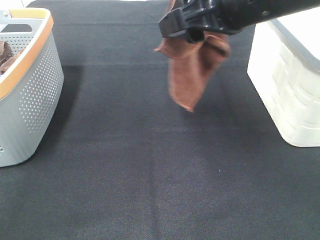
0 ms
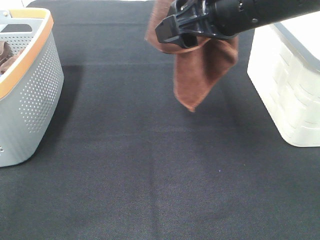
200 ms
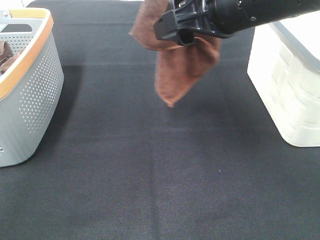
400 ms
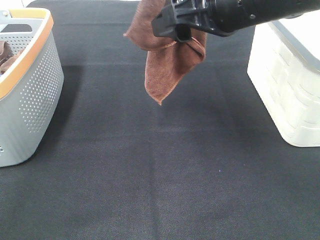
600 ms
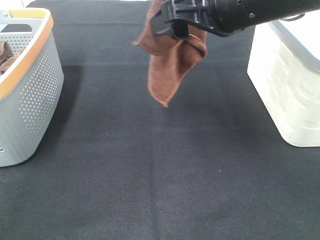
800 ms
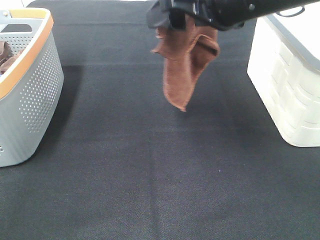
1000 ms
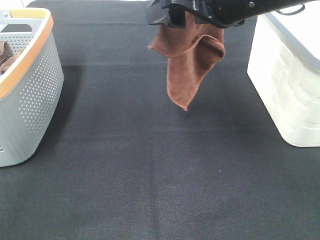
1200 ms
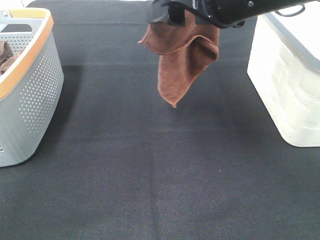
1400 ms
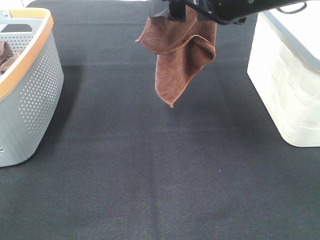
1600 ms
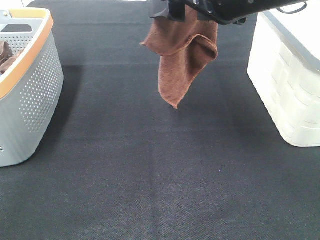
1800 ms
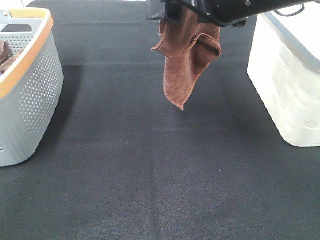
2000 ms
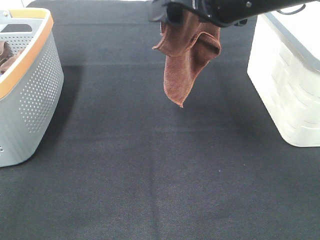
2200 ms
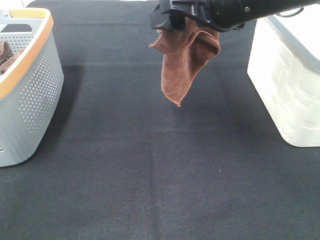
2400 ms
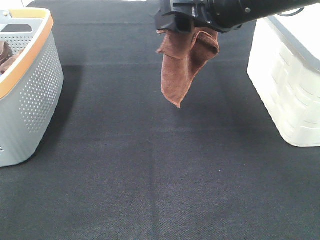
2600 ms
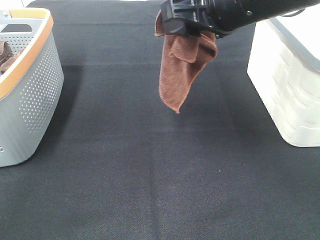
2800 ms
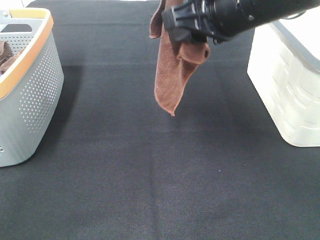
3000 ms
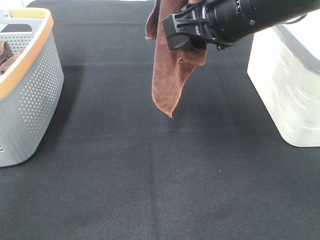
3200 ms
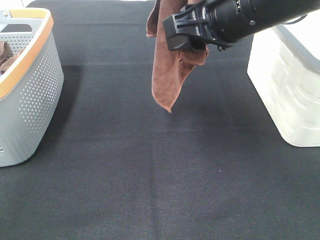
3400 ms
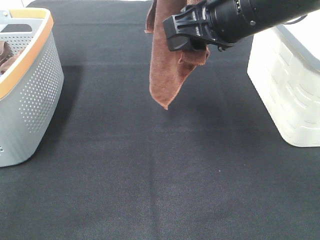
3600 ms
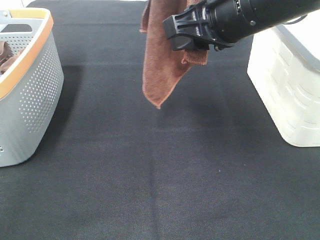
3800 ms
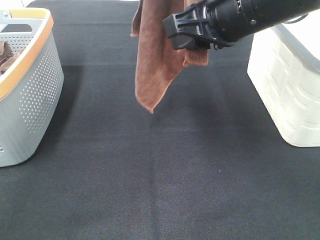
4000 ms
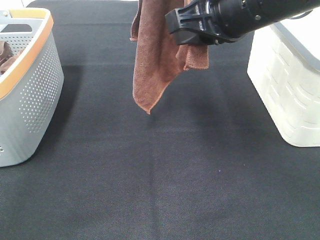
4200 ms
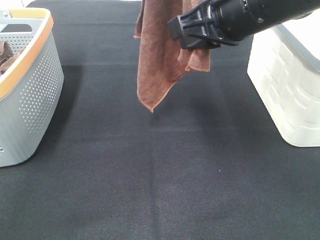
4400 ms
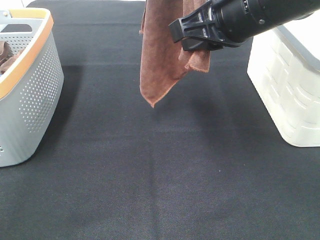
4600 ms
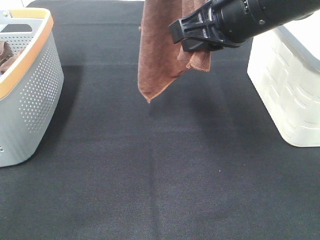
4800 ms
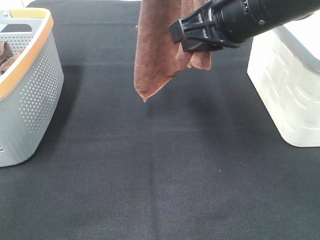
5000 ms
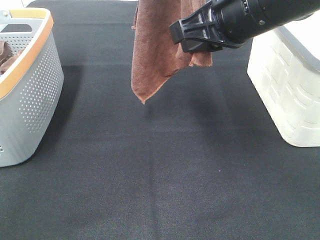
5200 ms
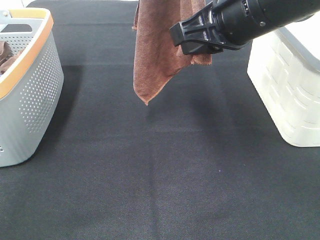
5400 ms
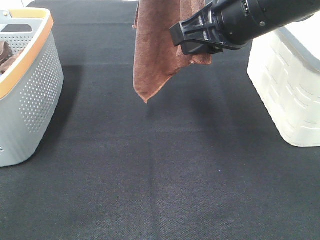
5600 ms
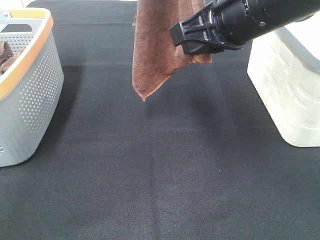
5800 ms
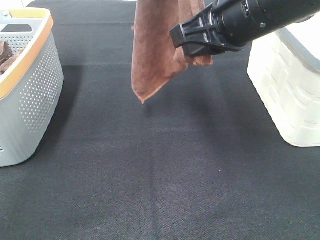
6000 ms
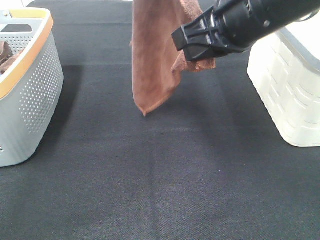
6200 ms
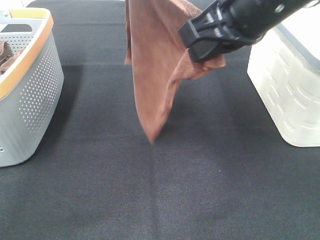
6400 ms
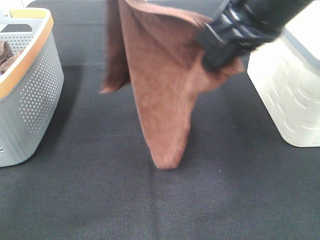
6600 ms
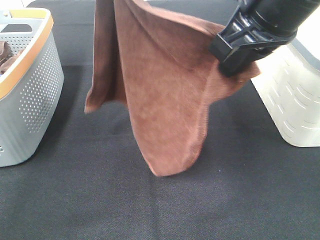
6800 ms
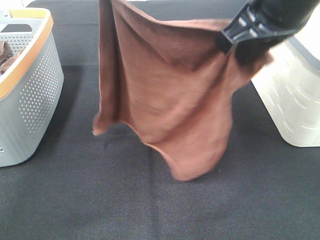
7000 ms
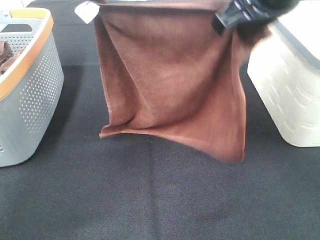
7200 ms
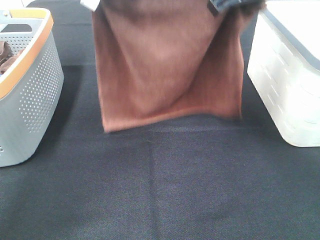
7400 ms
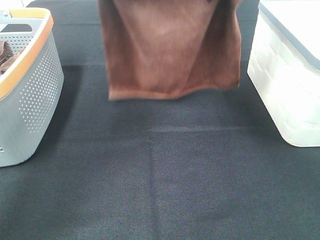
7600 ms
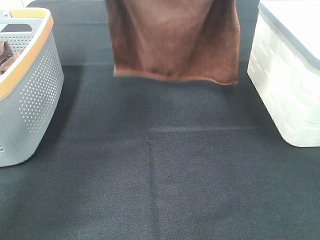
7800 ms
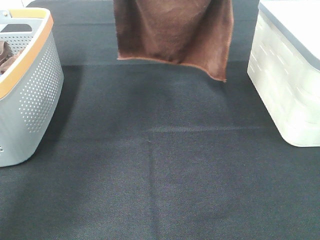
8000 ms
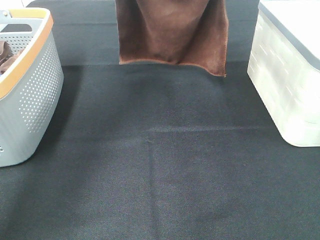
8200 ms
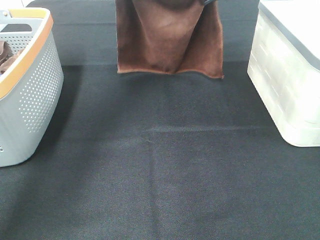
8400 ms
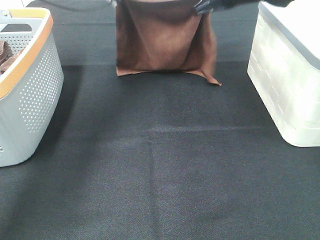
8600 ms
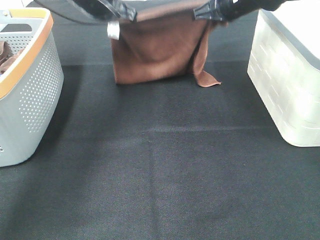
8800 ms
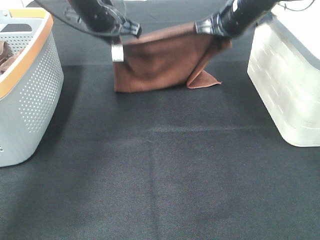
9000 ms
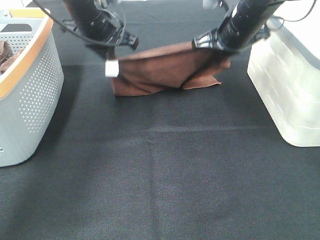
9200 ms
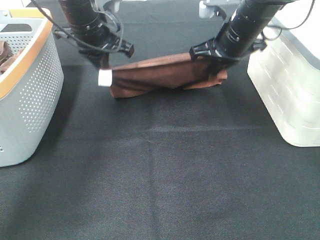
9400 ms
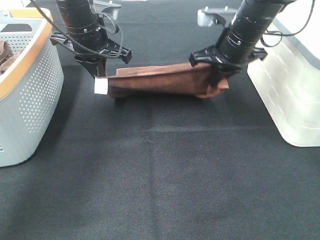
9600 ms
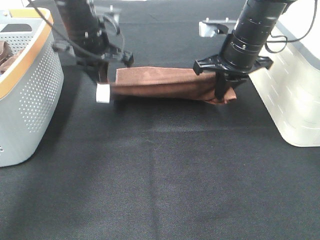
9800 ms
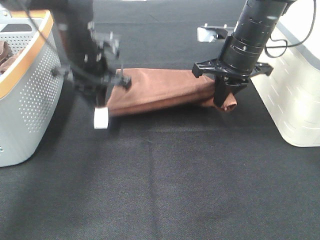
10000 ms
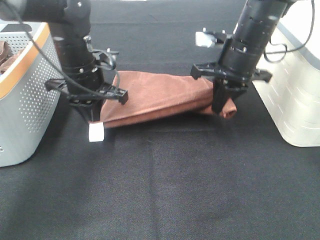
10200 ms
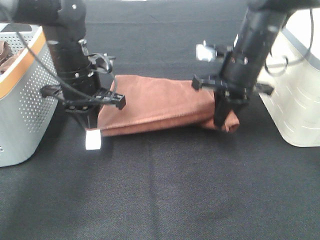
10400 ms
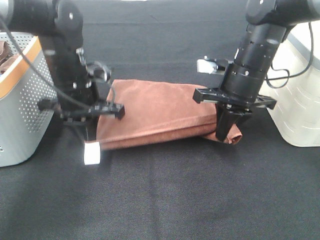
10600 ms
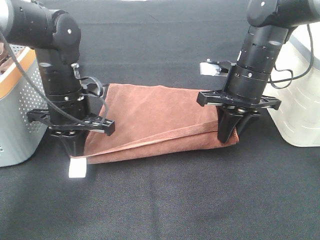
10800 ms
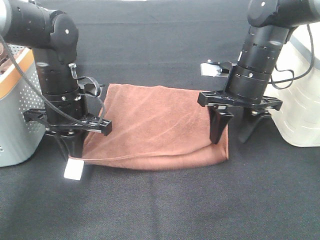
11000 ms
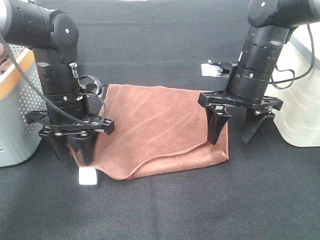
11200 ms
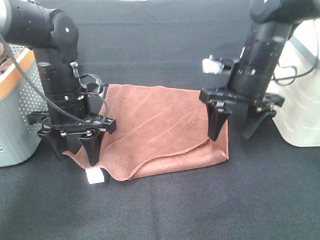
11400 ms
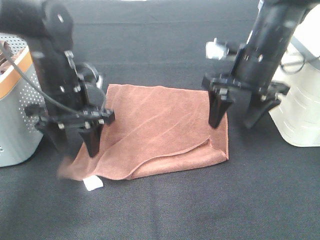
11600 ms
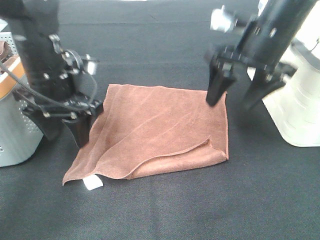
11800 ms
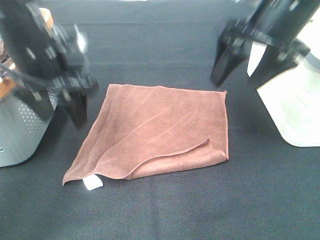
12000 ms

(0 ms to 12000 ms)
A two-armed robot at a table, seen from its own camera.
Task of the whole recording: Remove the towel and place it.
Step, 0 ms - 3600 ms: Right hand: grab a corner of the brown towel and straighten it.
Step, 3800 ms - 6400 ms: Right hand: spread the brown towel flat on the table.
Step, 3800 ms - 6800 ms: Left hand: spread the brown towel flat on the table.
0 ms - 1600 ms: The grippers make only small movements.
1600 ms - 3000 ms: The right gripper closes up.
3000 ms - 4400 ms: The right gripper closes.
4400 ms - 6000 ms: The grippers make only small movements.
6000 ms - 7600 ms: The right gripper travels forward by about 10 cm. The left gripper shifts approximately 15 cm downward, forward and to the left.
7600 ms - 9000 ms: The left gripper shifts about 15 cm downward, while the right gripper heads downward and forward, covering roughly 15 cm.
9000 ms - 10400 ms: The right gripper heads backward, covering approximately 10 cm, while the left gripper heads backward and downward, covering about 10 cm.
10400 ms - 12000 ms: The grippers both shift upward and backward by some 10 cm. The right gripper opens. Meanwhile the left gripper opens up.

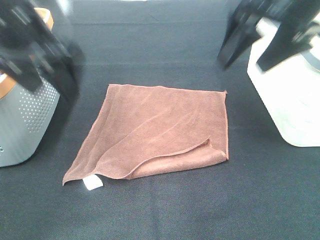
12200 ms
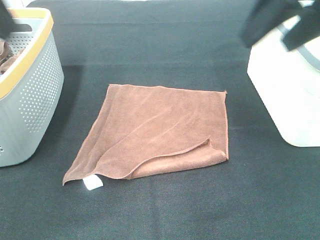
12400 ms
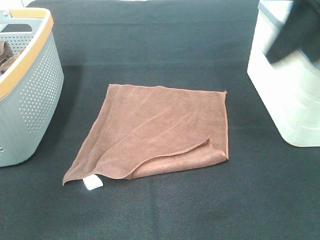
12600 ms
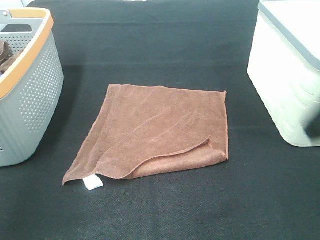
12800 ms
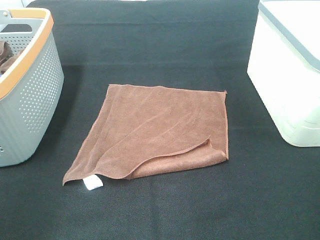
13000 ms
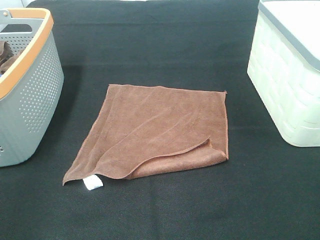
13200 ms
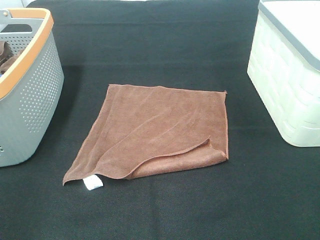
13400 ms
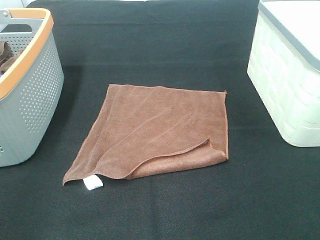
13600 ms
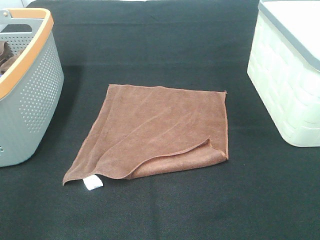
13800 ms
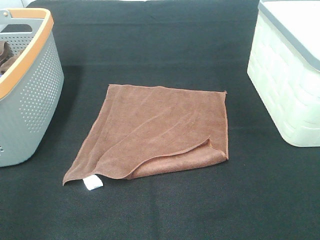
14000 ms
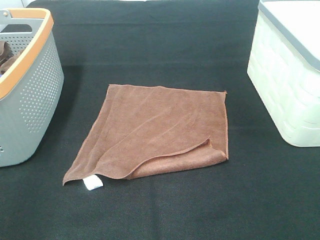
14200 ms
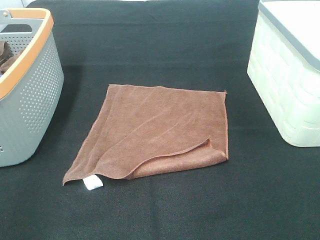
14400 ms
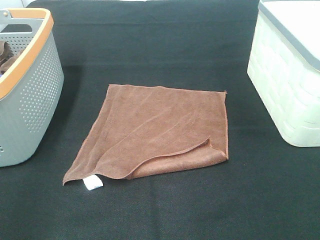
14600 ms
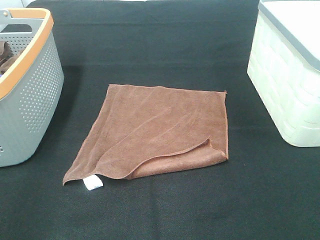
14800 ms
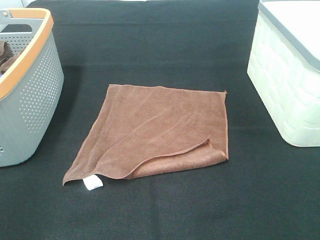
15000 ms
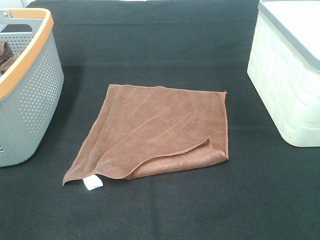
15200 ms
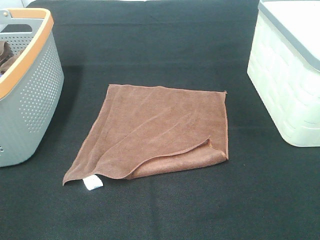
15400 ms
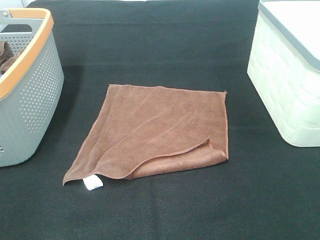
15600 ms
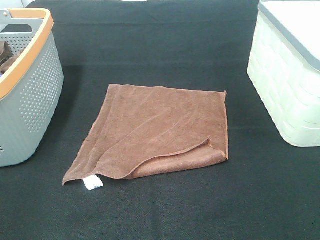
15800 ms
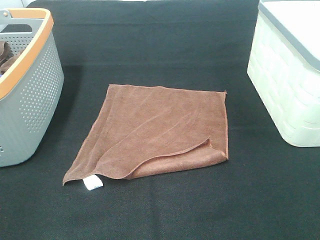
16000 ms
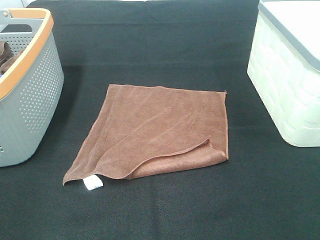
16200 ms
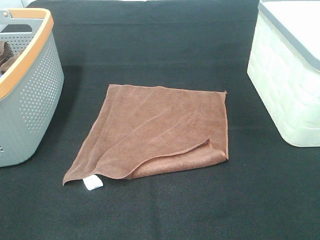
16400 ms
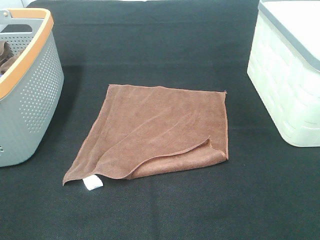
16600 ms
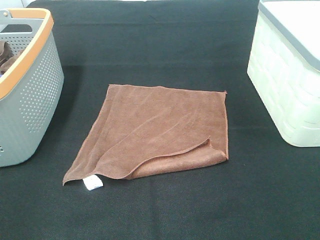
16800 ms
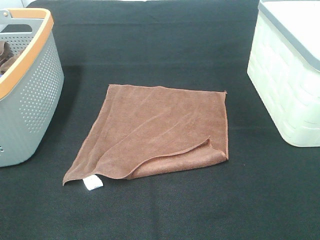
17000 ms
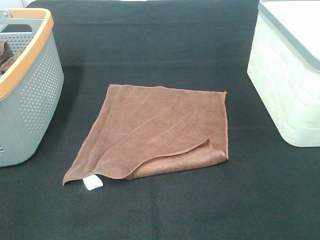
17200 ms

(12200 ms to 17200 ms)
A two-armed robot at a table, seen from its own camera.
Task of the whole recording: Remove the towel and place it.
12200 ms - 13800 ms: The left gripper moves backward and to the left, about 30 cm; the right gripper is displaced backward by about 25 cm.

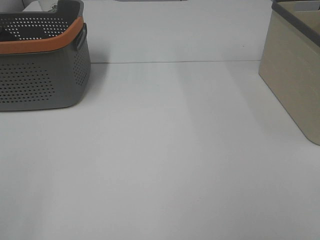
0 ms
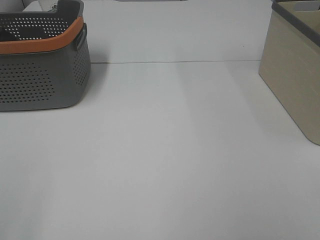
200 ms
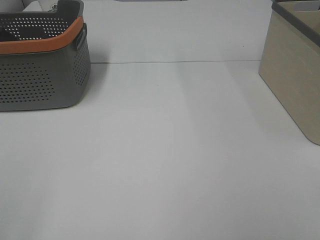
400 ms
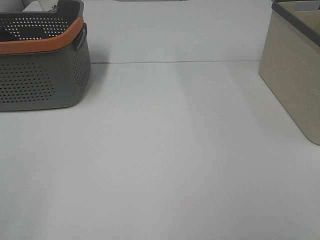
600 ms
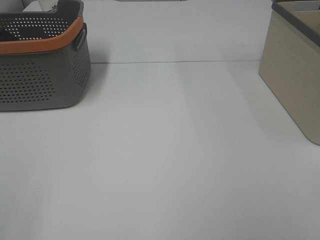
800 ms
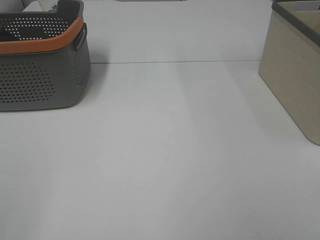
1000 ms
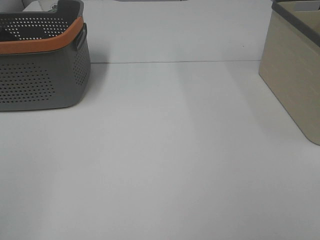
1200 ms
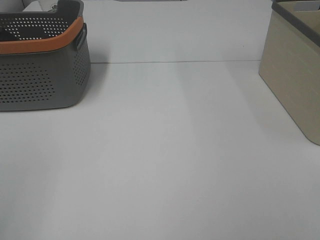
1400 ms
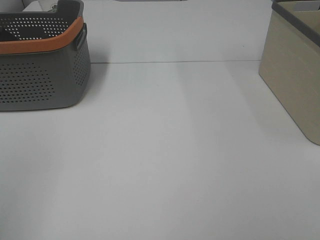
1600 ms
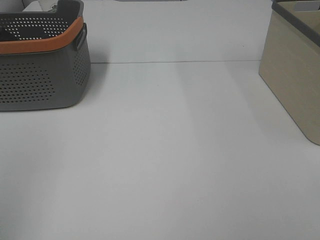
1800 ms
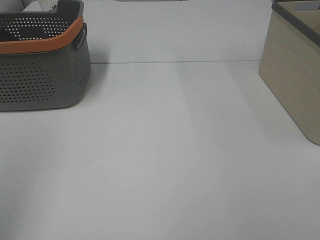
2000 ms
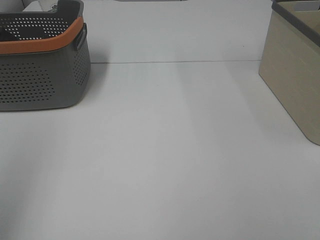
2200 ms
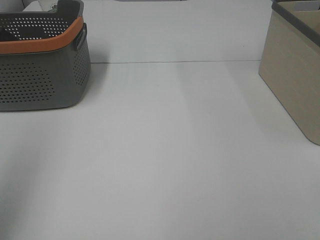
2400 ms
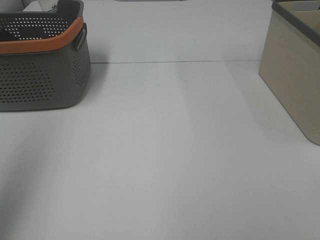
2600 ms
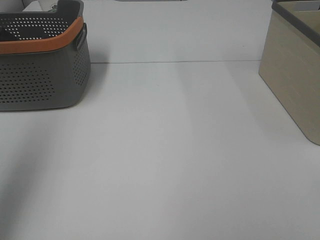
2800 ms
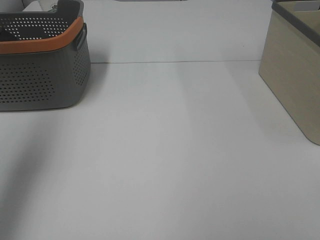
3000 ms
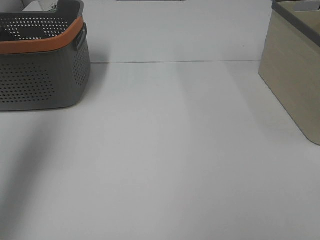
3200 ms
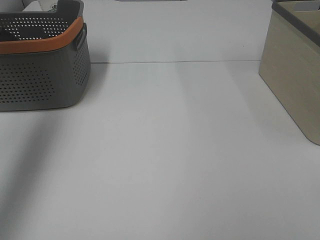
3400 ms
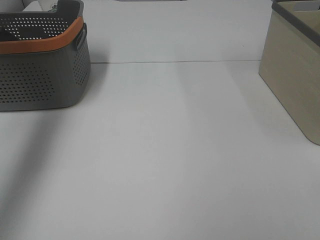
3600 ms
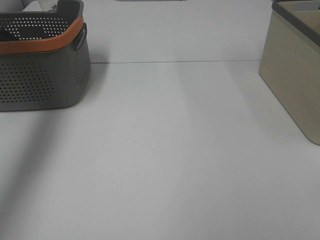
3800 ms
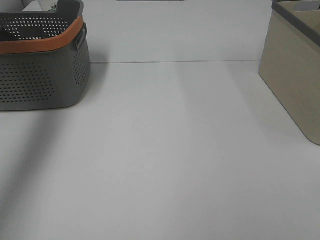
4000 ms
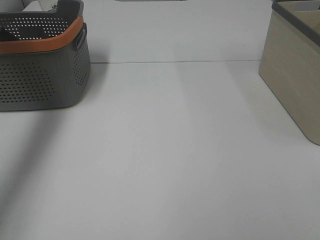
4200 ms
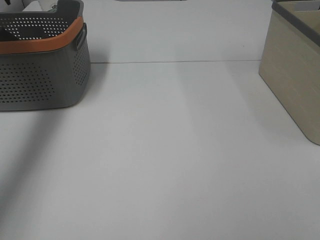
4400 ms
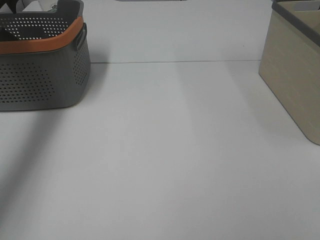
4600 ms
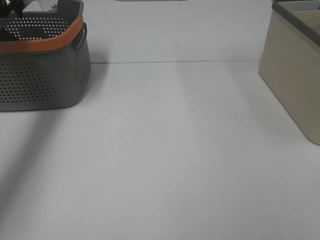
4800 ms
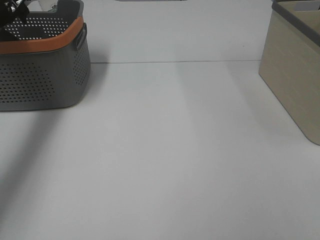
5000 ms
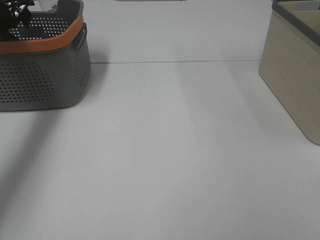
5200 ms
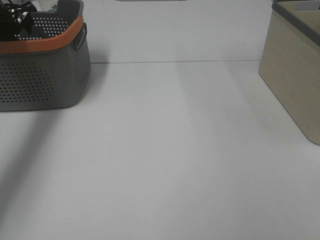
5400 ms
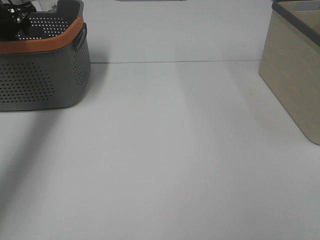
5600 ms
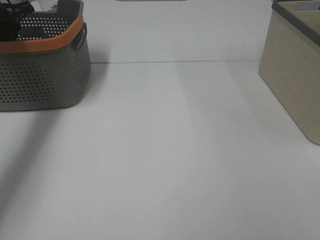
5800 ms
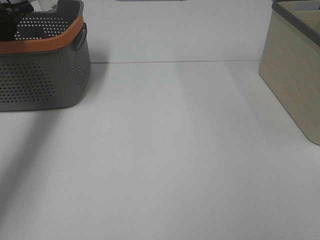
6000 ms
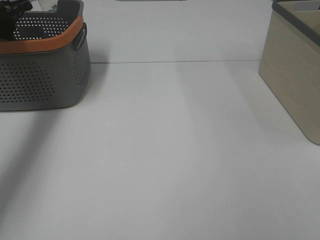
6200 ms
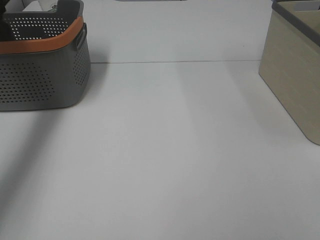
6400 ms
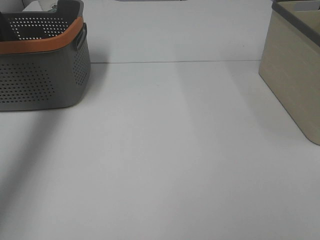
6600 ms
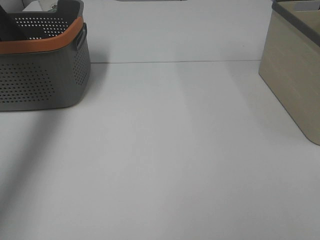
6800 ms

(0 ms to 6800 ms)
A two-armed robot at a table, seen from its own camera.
Task of the whole recording: Remove the towel and place it.
1400 ms - 2800 ms: The left gripper heads forward and upward, covering some 15 cm.
2800 ms - 4000 ms: The left gripper moves forward, roughly 25 cm.
4000 ms - 5400 ms: The left gripper travels downward and forward by roughly 20 cm.
5400 ms - 6800 ms: The left gripper is displaced upward by about 15 cm, and closes its fingers.
